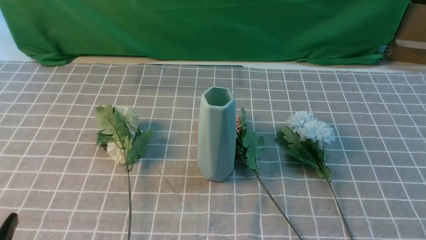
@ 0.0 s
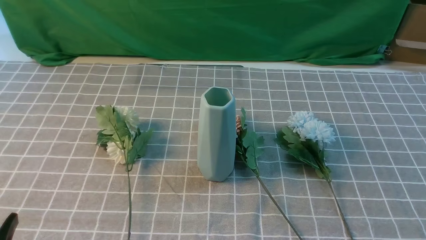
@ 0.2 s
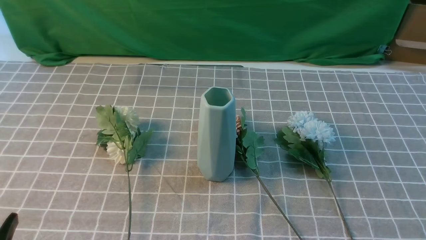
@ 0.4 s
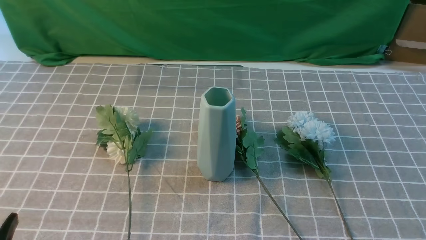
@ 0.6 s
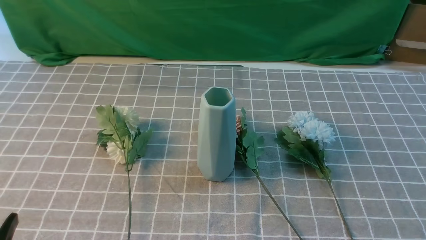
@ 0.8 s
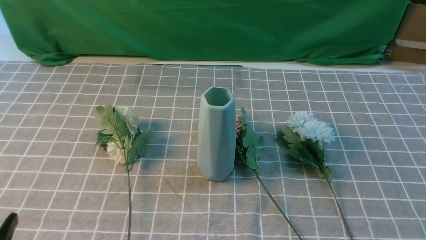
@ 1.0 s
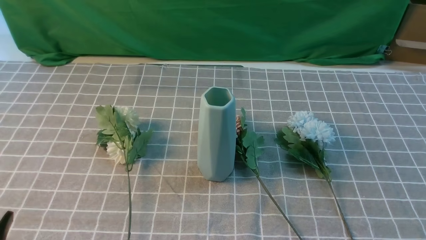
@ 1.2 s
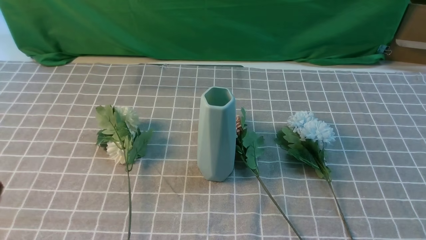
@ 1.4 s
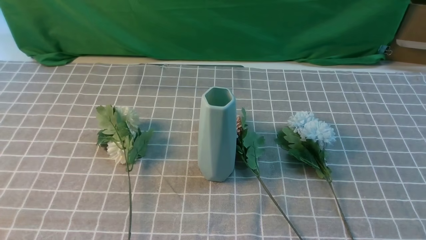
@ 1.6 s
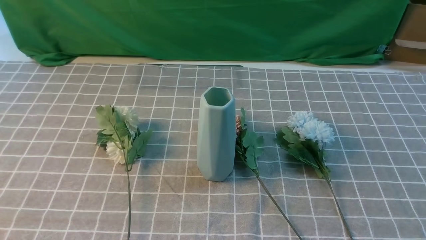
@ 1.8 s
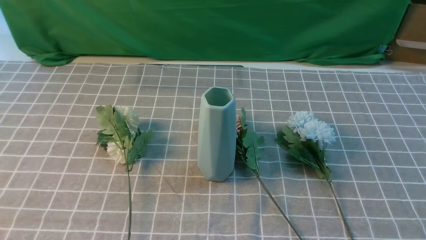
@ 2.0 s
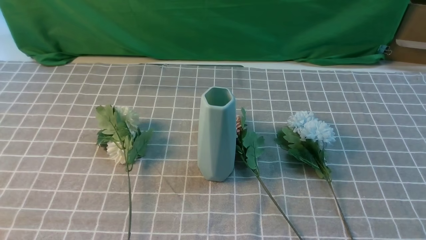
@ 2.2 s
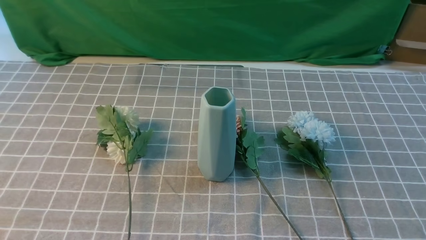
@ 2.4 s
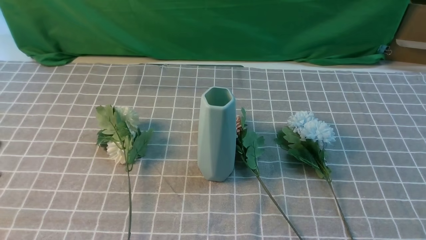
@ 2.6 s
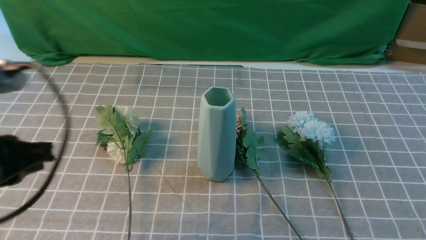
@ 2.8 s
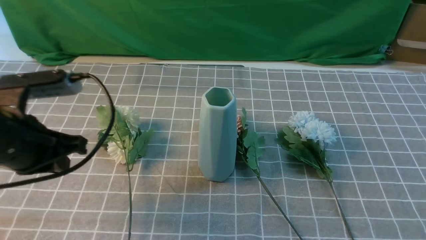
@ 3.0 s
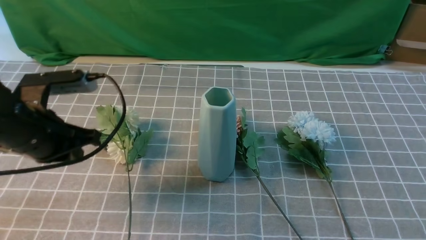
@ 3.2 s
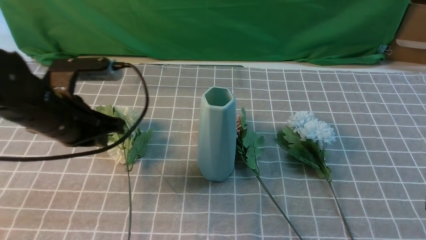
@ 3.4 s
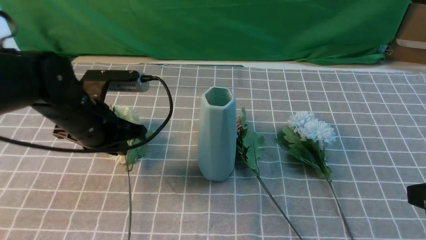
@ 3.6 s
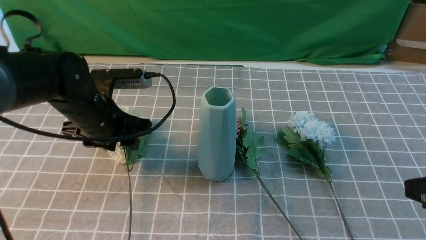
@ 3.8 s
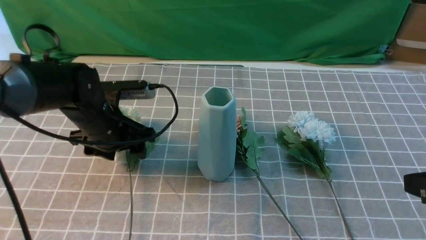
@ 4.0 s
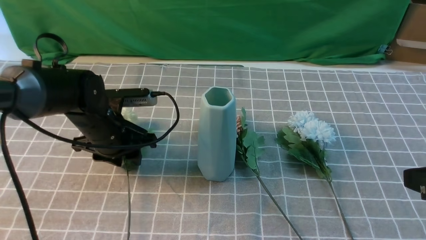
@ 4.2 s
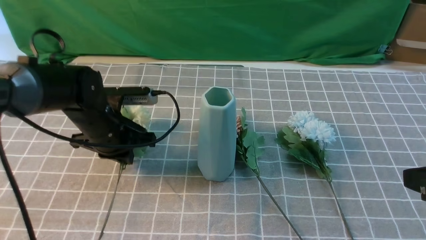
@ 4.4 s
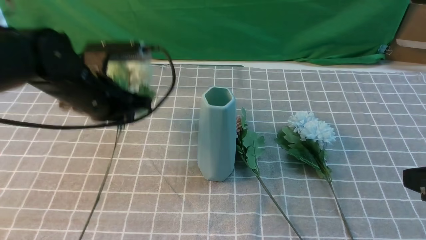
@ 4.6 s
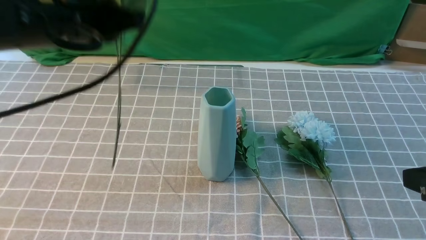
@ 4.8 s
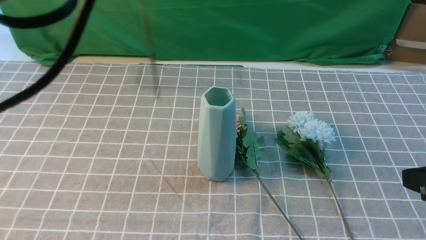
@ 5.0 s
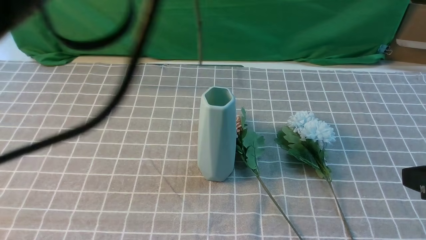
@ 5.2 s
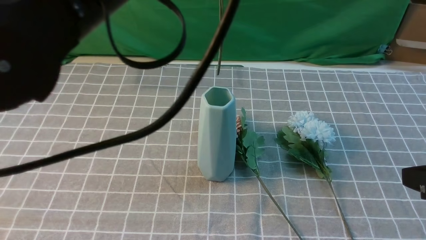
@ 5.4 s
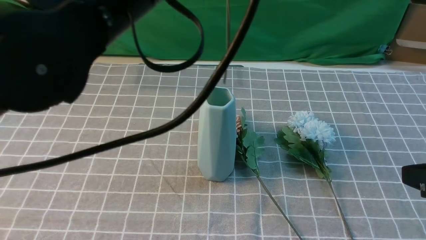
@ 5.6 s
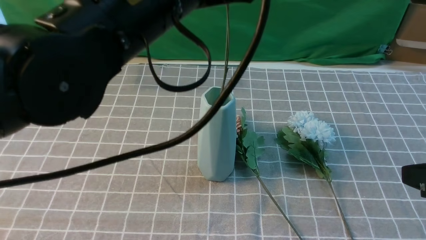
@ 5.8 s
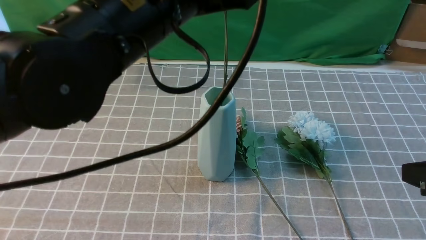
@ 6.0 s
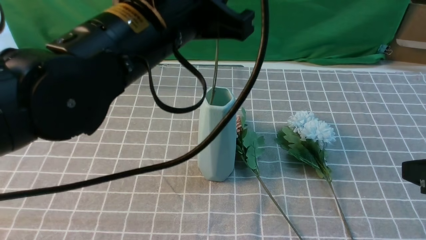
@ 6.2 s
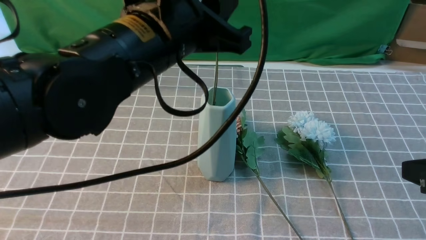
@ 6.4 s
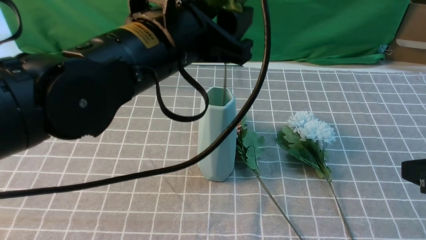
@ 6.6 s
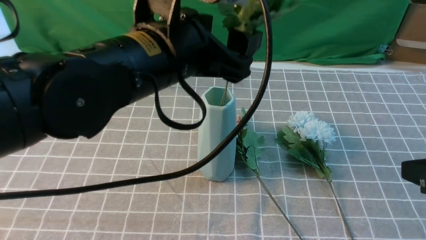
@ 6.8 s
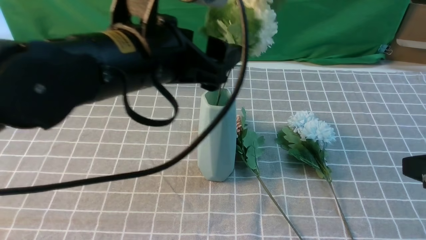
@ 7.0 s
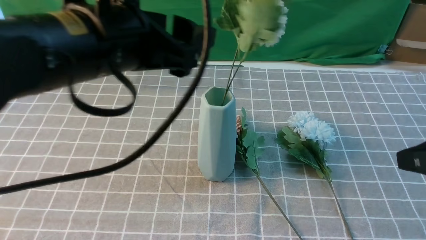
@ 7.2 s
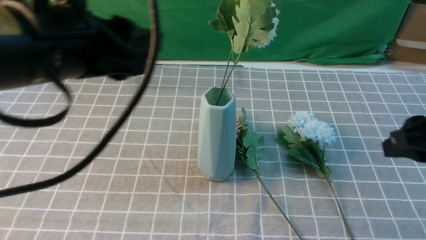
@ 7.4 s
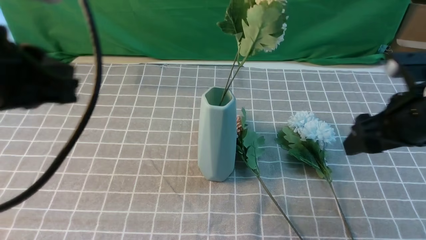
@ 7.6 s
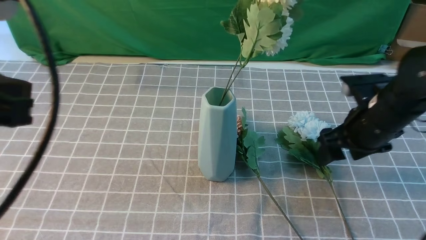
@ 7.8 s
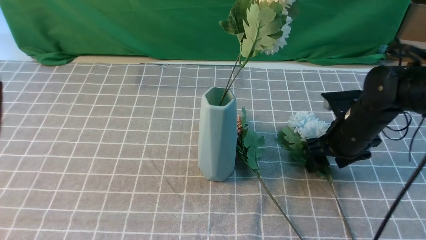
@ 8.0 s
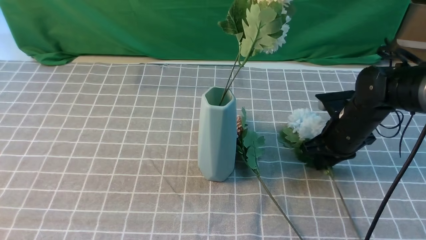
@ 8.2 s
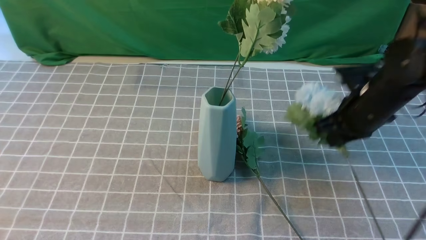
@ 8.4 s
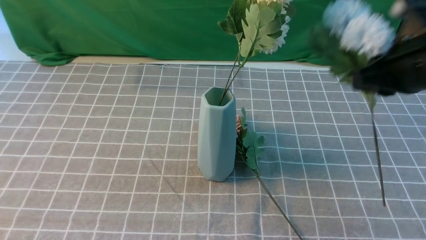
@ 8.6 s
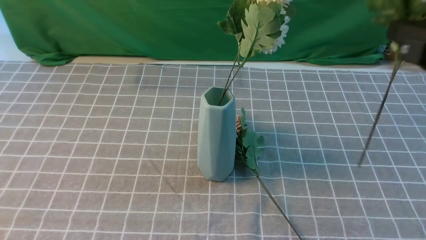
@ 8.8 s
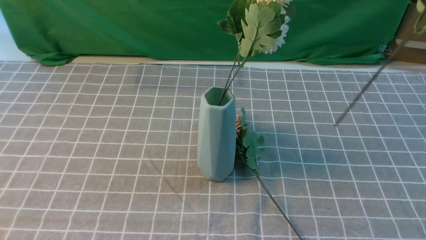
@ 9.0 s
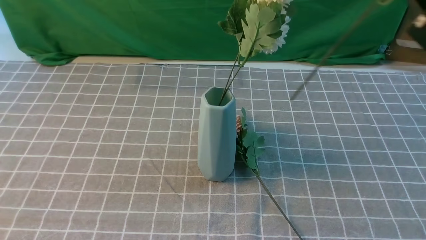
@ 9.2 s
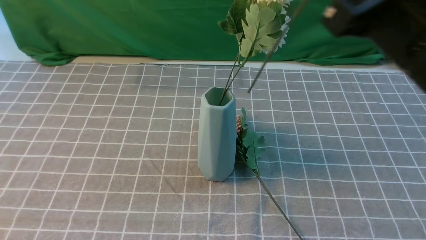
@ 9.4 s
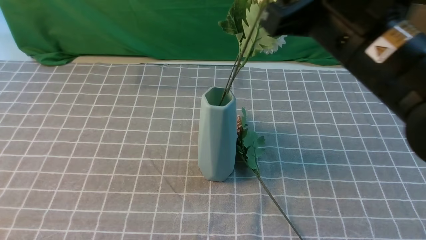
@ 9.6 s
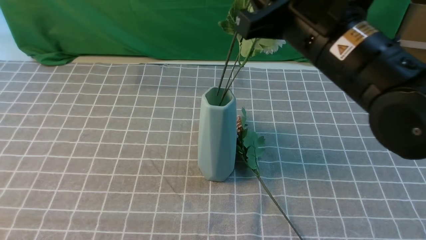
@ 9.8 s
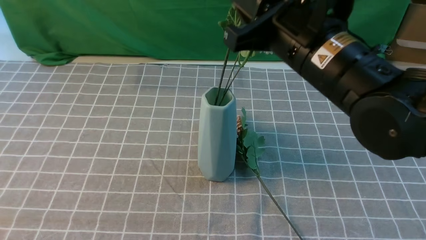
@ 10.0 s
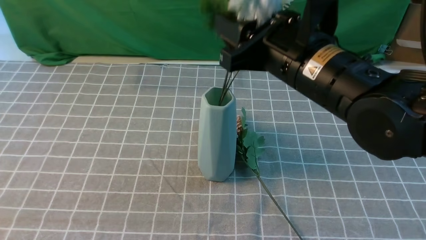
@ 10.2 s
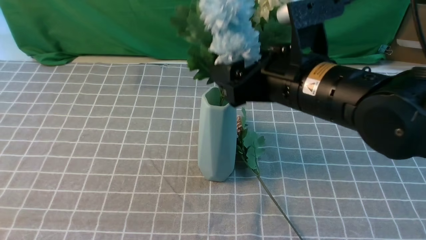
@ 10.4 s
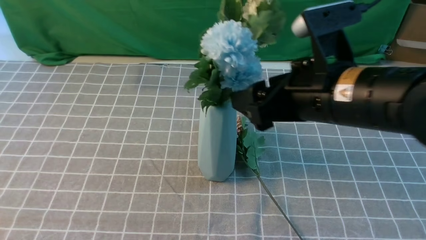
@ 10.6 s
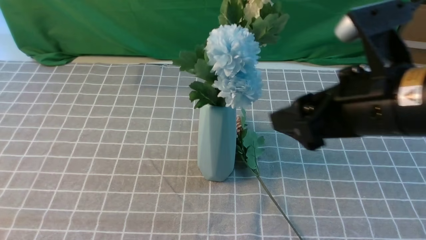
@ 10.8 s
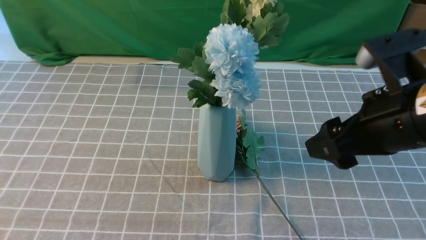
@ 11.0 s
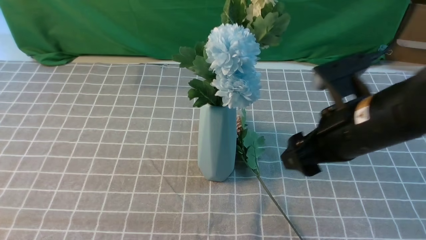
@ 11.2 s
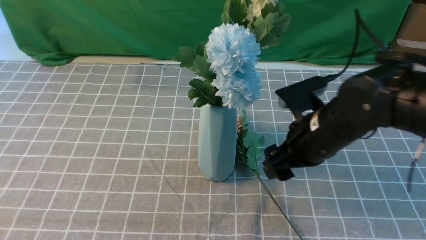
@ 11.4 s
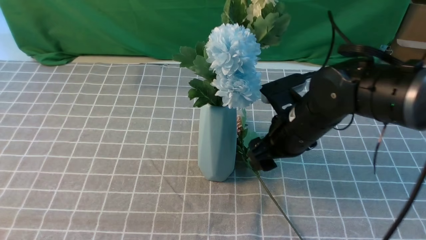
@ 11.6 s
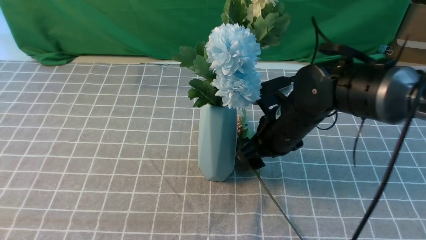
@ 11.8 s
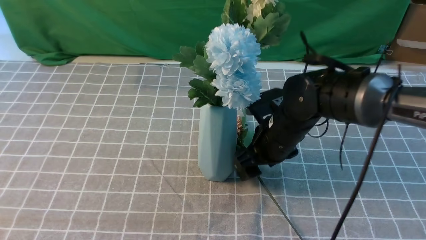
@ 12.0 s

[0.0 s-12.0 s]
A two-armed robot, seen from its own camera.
Task of the whole recording: insert the flowers into the vase on the table with the grey tablecloth.
Step, 0.0 to 4.4 s: use the left arm to grab a bunch of fresh flowers.
Step, 4.6 to 7.0 s: use the left arm to insert the flowers into the vase.
Step, 7.4 to 8.2 s: use the right arm to grab a bunch of fresh flowers.
Step, 8.4 to 10.6 s: use the right arm to insert the flowers into the vase.
1.6 to 3.0 s: The left gripper moves forward, roughly 20 cm, and closes, while the right gripper is displaced upward by approximately 5 cm.
3.0 to 4.4 s: The left gripper shifts approximately 15 cm forward, downward and to the right, and opens and closes again, while the right gripper goes roughly 10 cm forward and upward.
4.4 to 6.0 s: The left gripper is displaced upward, to the right and backward by approximately 25 cm.
6.0 to 7.6 s: The right gripper travels forward by about 15 cm, and opens up. The left gripper travels to the left and backward by some 15 cm, and opens, then closes again.
7.6 to 9.0 s: The right gripper shifts about 15 cm upward and backward, and closes; the left gripper heads backward, covering roughly 5 cm.
9.0 to 10.4 s: The right gripper is displaced to the left, forward and downward by roughly 15 cm, and opens its fingers.
10.4 to 12.0 s: The right gripper is displaced downward and forward by some 20 cm.

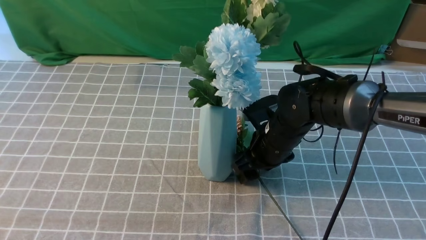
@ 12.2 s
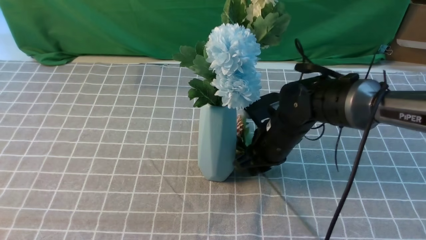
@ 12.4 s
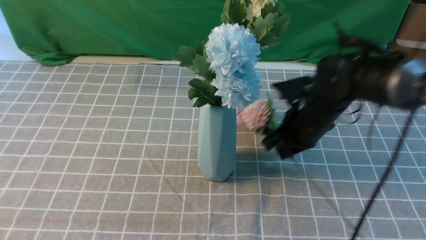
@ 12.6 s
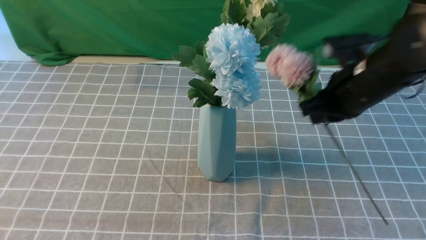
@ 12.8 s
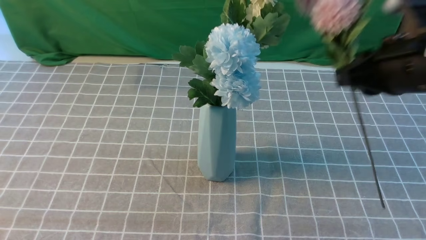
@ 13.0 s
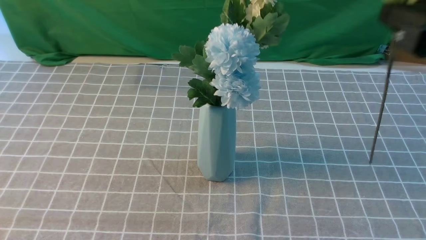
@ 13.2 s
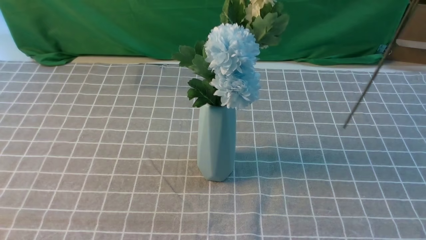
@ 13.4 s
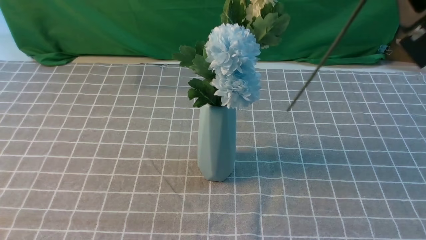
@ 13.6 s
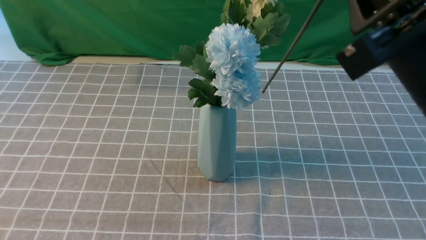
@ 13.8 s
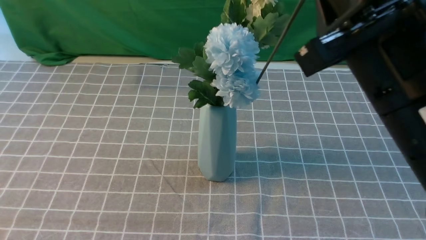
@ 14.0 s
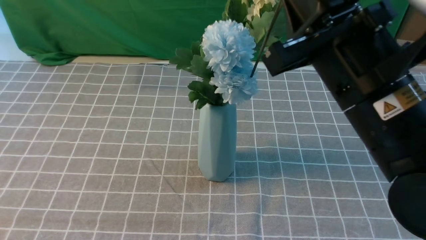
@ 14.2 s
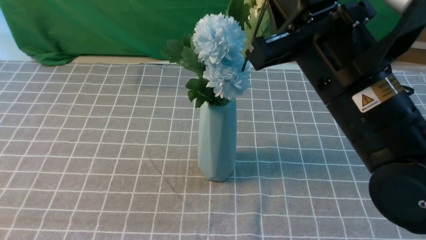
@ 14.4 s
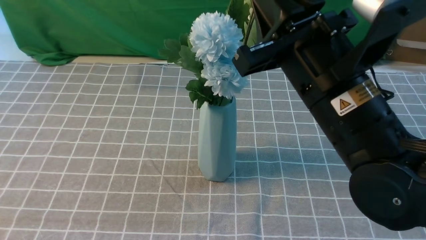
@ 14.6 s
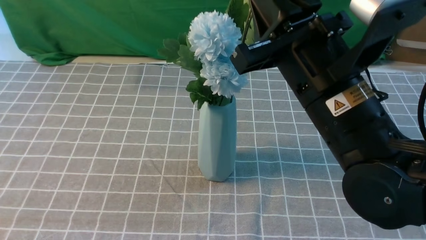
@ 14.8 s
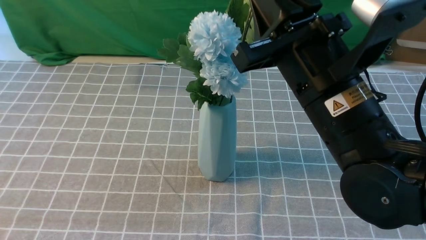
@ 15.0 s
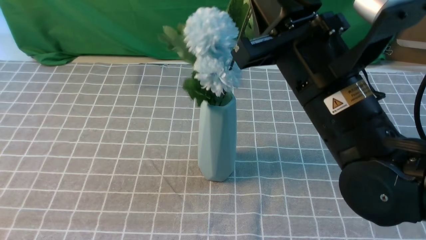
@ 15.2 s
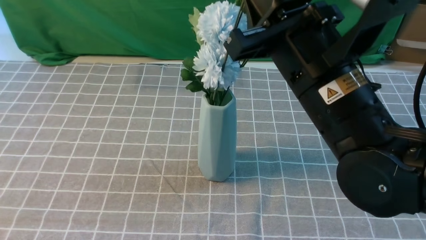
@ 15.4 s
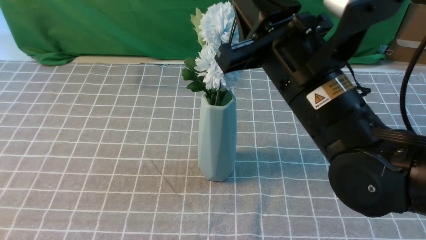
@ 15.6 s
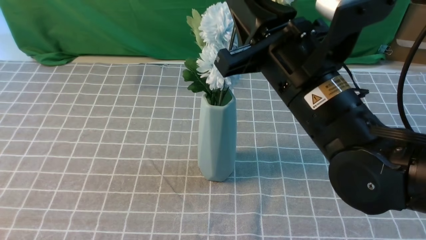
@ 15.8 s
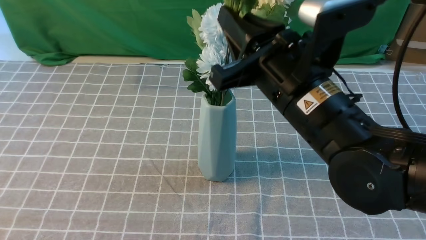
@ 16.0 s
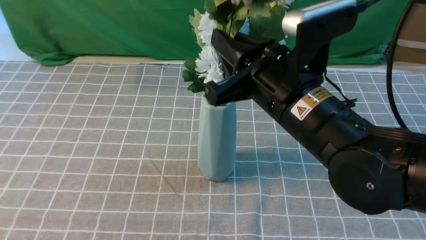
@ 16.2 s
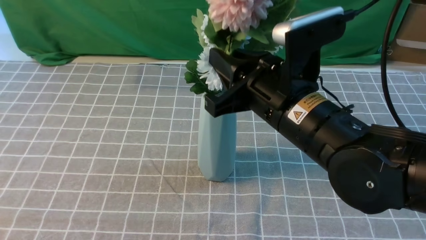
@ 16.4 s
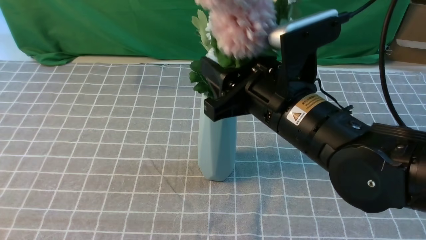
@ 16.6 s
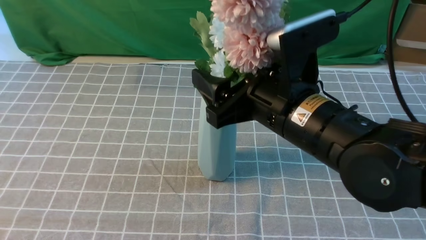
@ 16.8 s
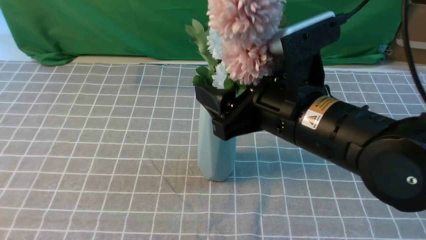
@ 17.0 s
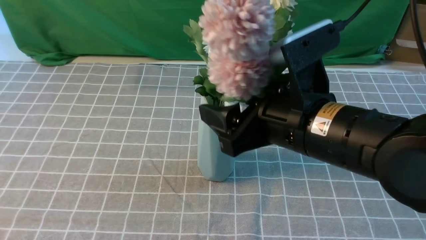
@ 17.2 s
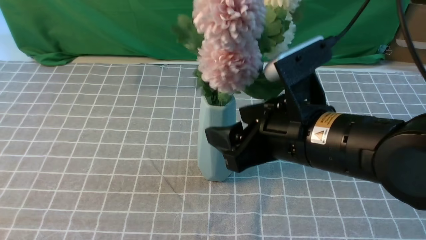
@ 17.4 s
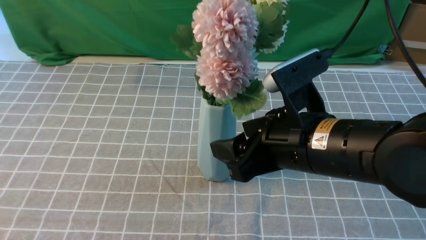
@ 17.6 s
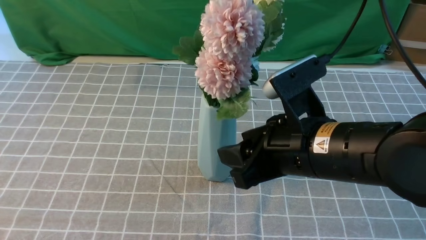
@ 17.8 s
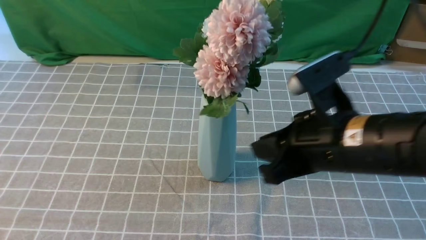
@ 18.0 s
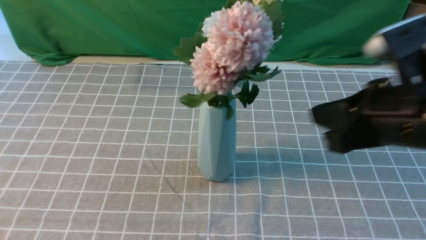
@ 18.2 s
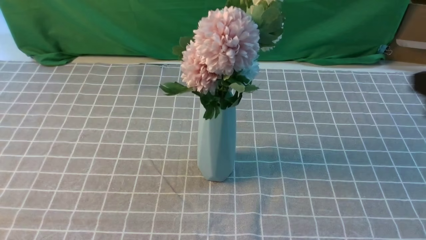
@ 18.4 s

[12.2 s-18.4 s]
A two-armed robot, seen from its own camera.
Task of the whole recording: insert the flowers into the vase on the table with the grey tablecloth.
Step, 12.6 to 17.4 s: use the right arm to insert the flowers into the vase.
12.2 to 13.8 s: The right gripper heads upward and backward, covering about 30 cm, and closes.
13.8 to 15.4 s: The right gripper moves forward, to the left and downward, roughly 10 cm.
15.4 to 16.8 s: The right gripper opens up.
16.8 to 18.4 s: The right gripper moves to the right and upward, some 20 cm, and closes its fingers.
